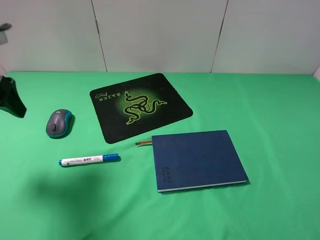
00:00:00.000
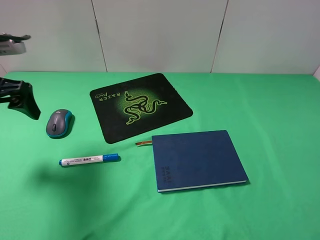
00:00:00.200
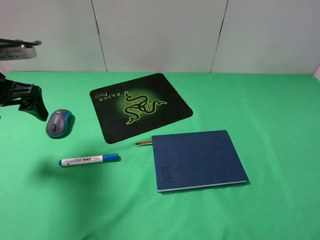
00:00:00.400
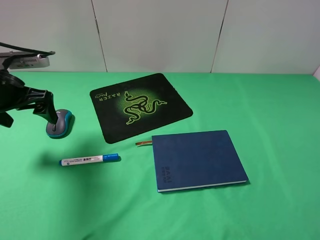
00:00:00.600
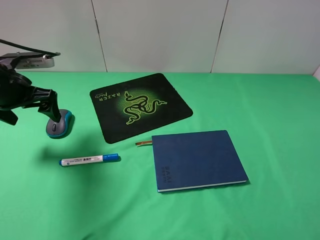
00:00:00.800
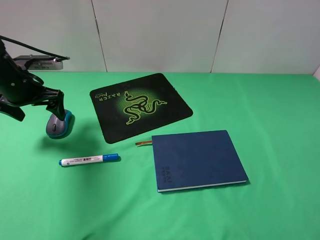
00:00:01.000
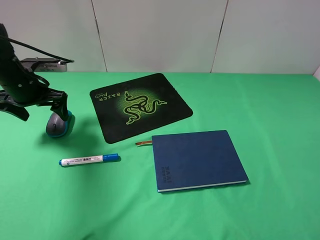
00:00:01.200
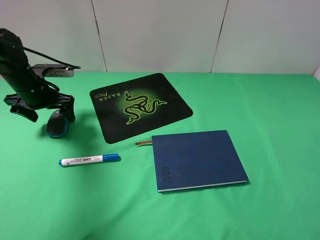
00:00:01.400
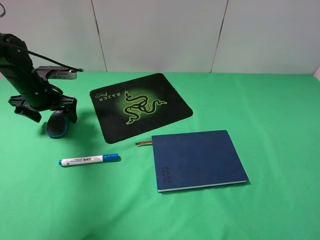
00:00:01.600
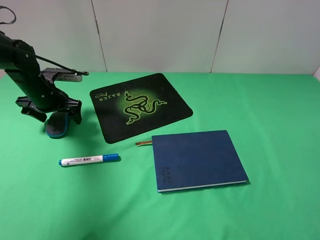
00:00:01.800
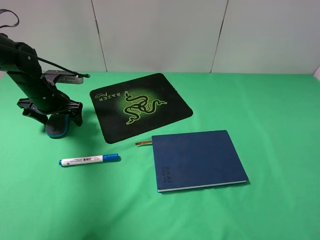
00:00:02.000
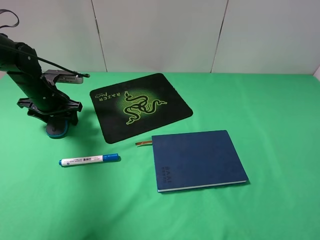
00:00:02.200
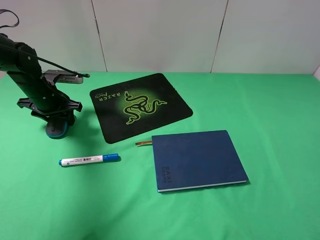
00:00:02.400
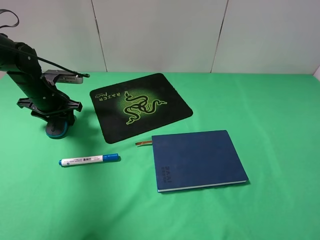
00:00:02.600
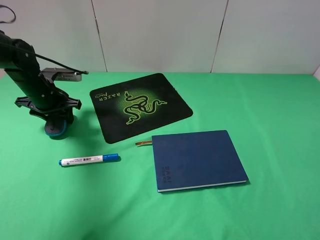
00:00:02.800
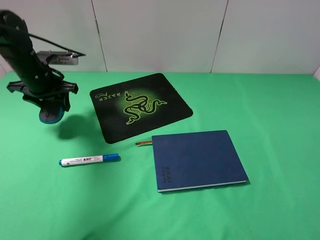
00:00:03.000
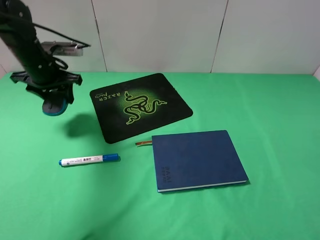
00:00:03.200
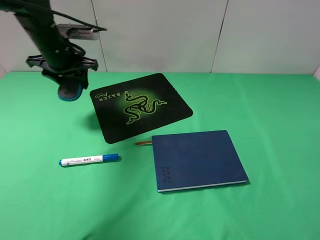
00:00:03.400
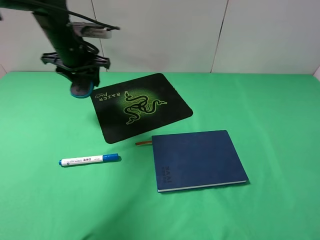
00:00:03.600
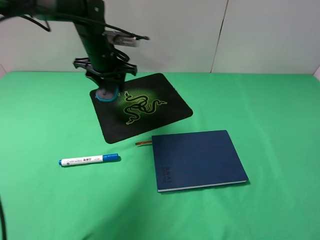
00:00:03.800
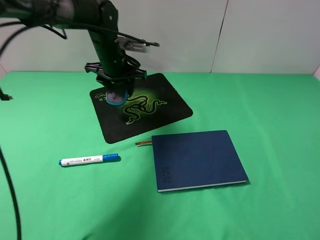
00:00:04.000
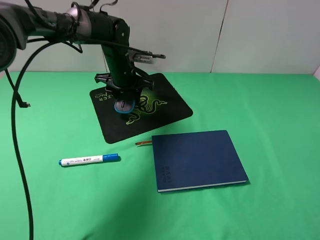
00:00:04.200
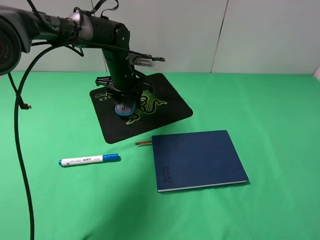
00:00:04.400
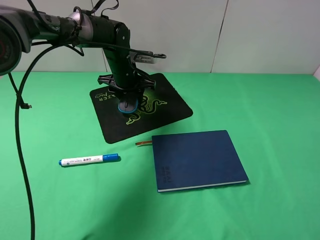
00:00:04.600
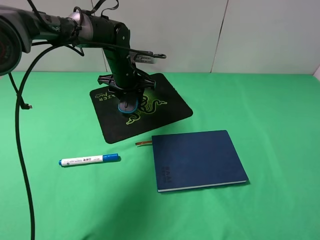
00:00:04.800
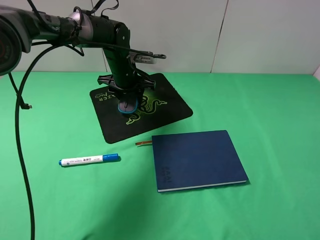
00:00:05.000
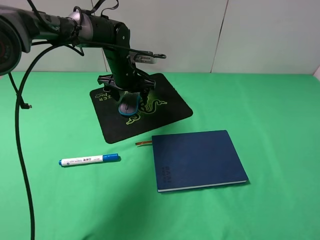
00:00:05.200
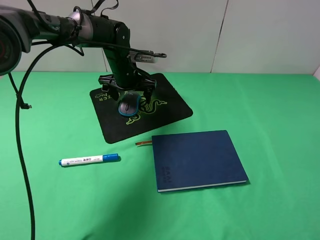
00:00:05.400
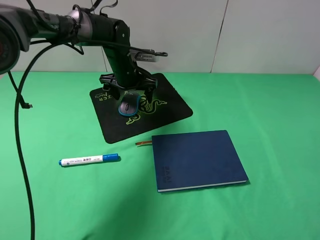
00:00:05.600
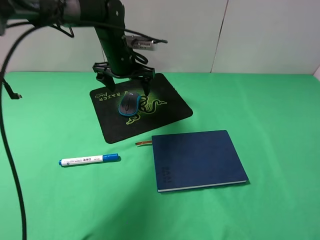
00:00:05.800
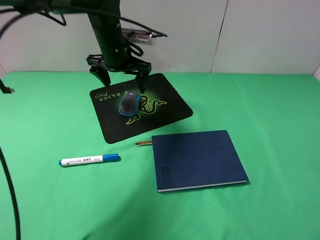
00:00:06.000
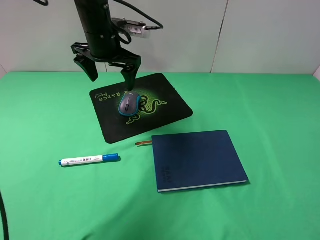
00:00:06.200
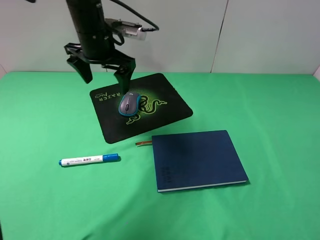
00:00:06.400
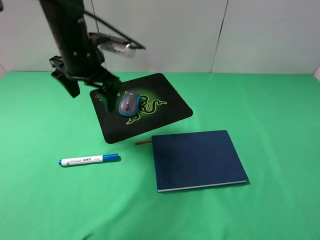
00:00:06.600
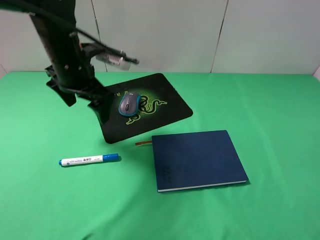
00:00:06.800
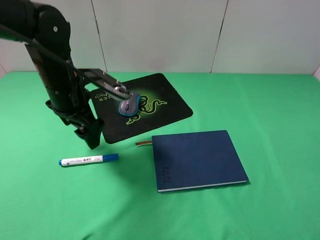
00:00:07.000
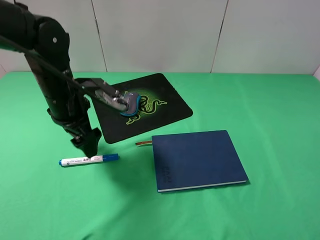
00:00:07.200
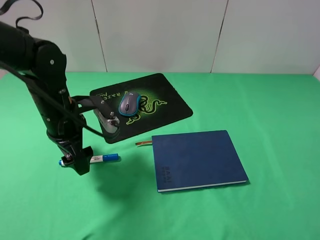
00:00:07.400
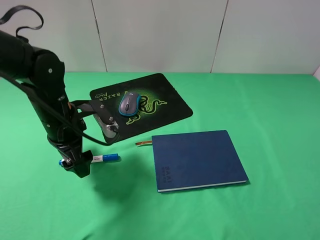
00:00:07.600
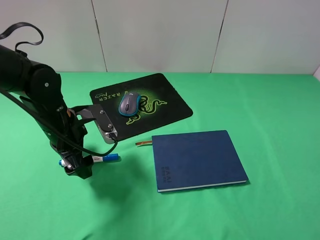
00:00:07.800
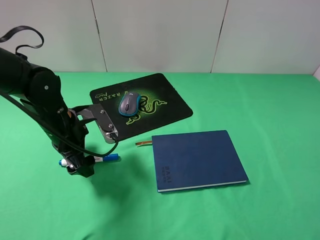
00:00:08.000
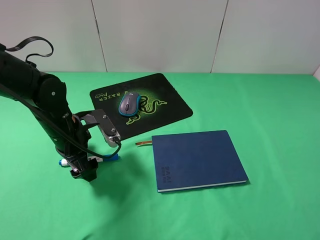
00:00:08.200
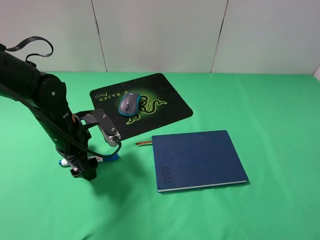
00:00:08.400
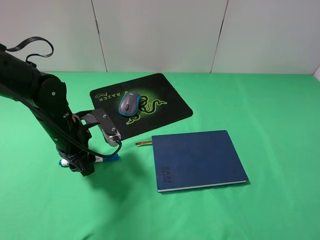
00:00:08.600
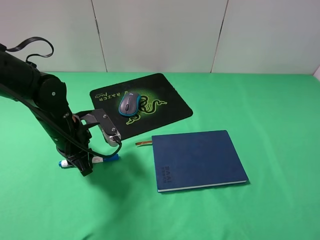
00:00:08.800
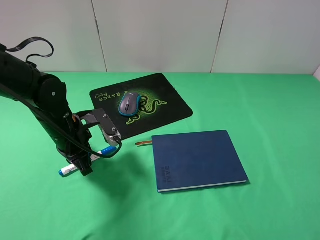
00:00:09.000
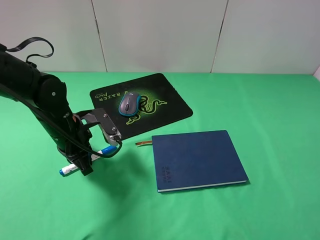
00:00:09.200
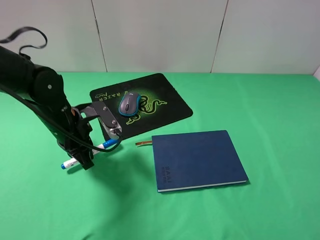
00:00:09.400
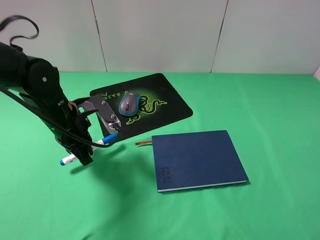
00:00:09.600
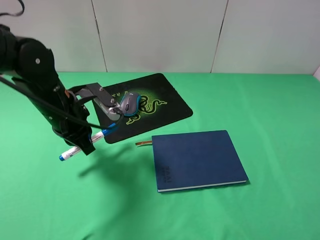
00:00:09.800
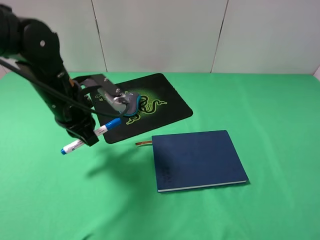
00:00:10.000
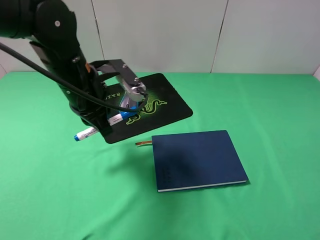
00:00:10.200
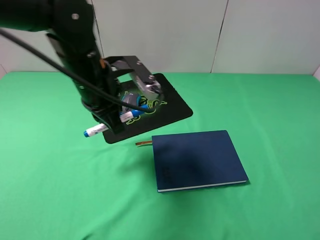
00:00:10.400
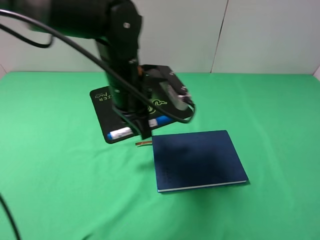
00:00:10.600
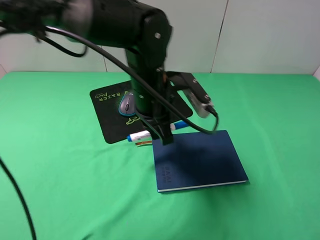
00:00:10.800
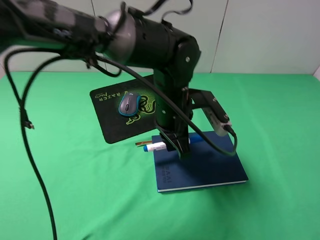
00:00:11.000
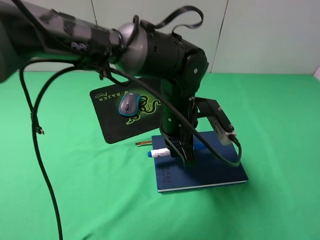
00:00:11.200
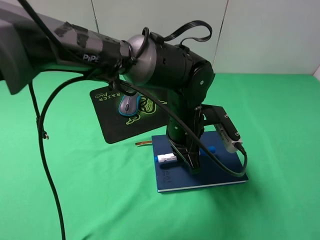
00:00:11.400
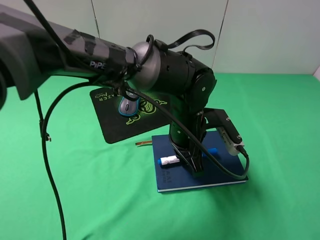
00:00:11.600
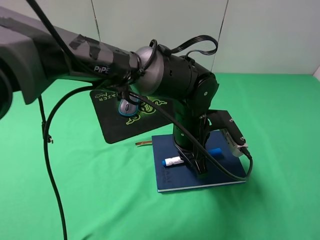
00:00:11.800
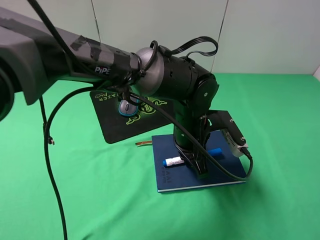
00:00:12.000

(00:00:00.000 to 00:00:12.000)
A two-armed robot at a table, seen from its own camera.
Step, 00:00:00.000 - 00:00:02.600: Grasp the mouse with the left gripper.
Step, 00:00:02.800 - 00:00:05.200: Place the mouse on the mouse pad with the left gripper.
Step, 00:00:05.400 - 00:00:08.800: Grasp the marker with the left gripper.
00:00:00.000 - 00:00:01.600: The left gripper heads downward and forward, covering about 20 cm.
00:00:01.600 - 00:00:03.000: The left gripper closes.
00:00:03.000 - 00:00:04.400: The left gripper shifts some 20 cm to the right.
00:00:04.400 - 00:00:06.000: The left gripper shifts roughly 10 cm upward, and opens.
00:00:06.000 - 00:00:07.600: The left gripper is displaced backward, to the left and downward by roughly 20 cm.
00:00:07.600 - 00:00:09.000: The left gripper closes up.
00:00:09.000 - 00:00:10.400: The left gripper travels upward and to the right by about 15 cm.
00:00:10.400 - 00:00:12.000: The left gripper heads to the right and downward, covering approximately 20 cm.

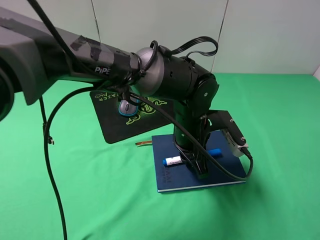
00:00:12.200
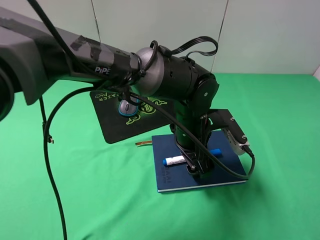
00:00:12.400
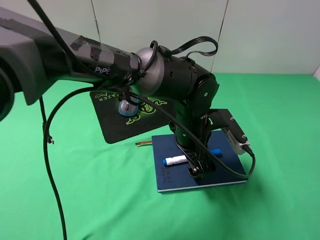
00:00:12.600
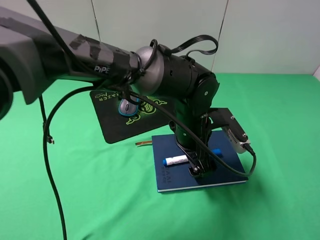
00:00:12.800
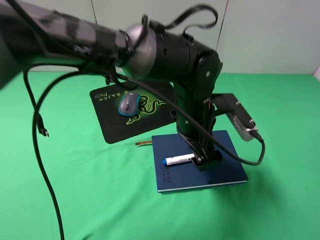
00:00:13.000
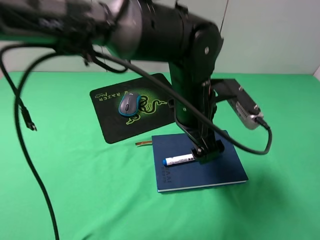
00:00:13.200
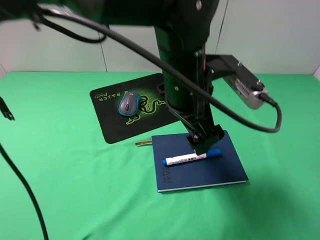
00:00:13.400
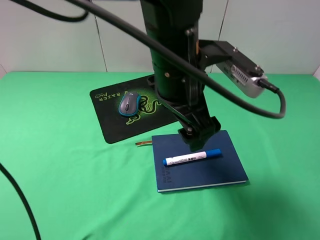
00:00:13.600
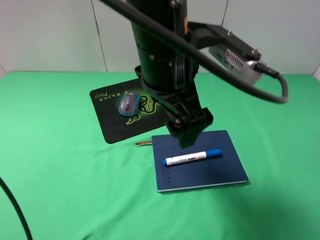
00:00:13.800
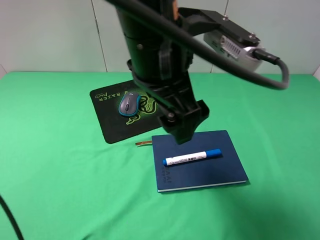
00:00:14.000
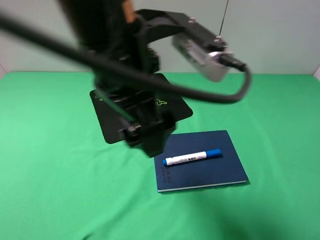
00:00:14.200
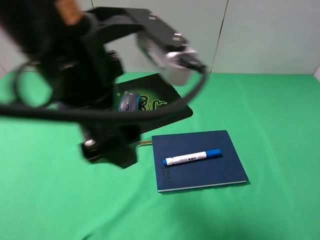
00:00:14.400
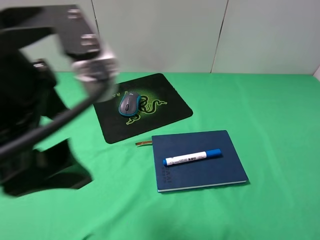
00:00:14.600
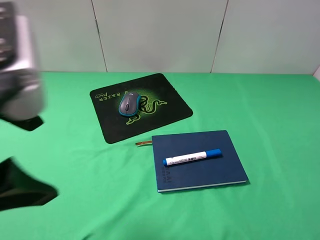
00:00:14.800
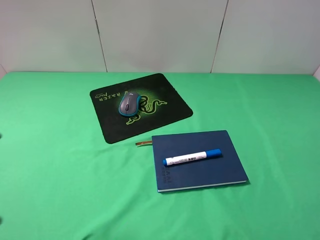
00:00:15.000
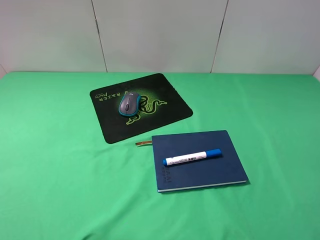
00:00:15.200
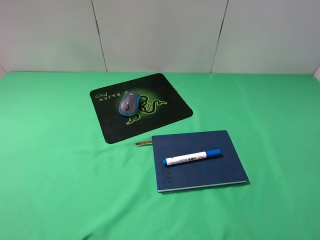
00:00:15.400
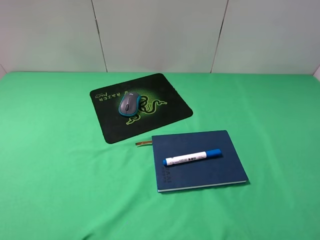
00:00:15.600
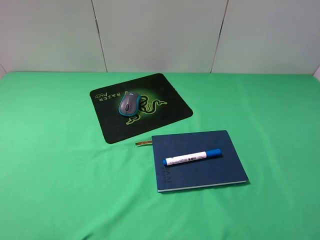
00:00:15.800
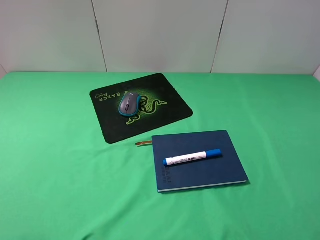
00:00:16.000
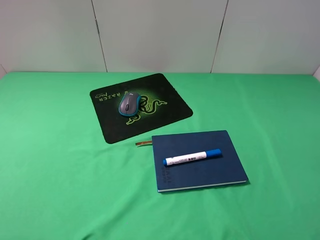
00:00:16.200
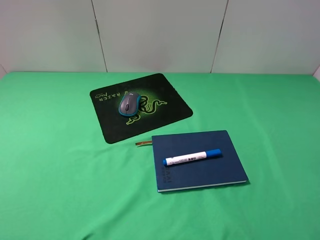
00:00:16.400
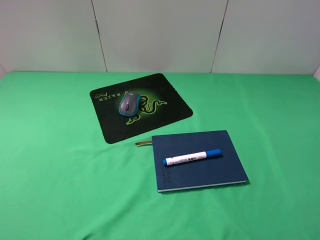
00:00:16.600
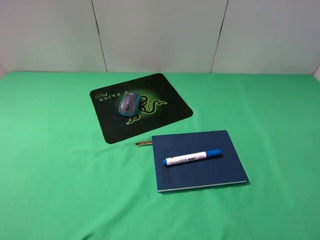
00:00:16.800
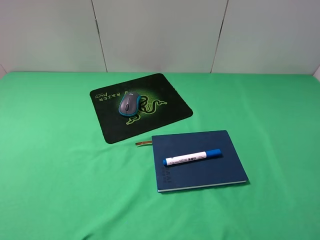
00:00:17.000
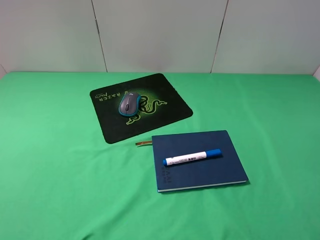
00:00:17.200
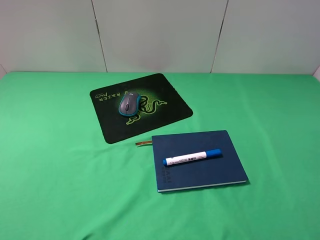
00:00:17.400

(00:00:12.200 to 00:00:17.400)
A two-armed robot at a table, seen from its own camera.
00:00:12.200 - 00:00:14.000: The left gripper moves upward, some 20 cm, and opens.
00:00:14.000 - 00:00:15.600: The left gripper heads to the left and backward, covering some 30 cm.

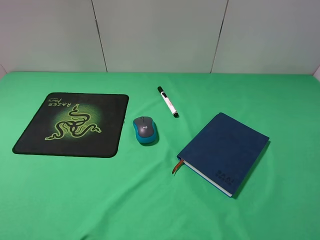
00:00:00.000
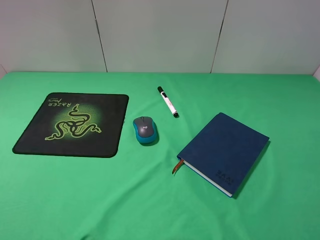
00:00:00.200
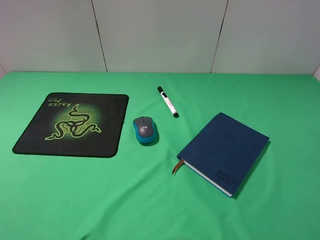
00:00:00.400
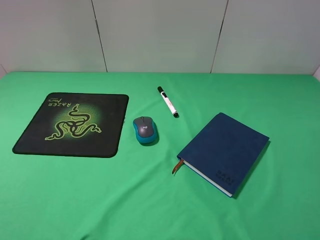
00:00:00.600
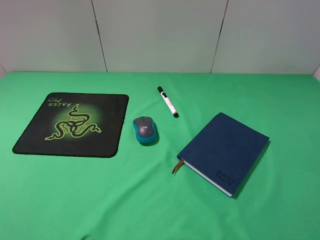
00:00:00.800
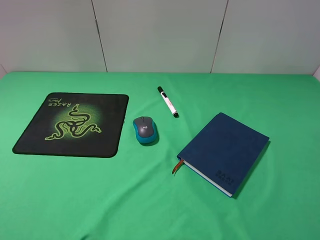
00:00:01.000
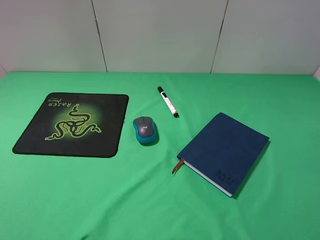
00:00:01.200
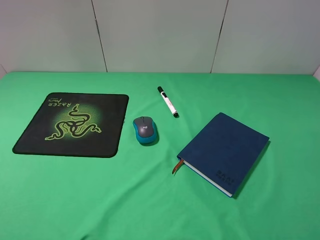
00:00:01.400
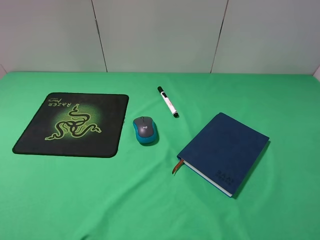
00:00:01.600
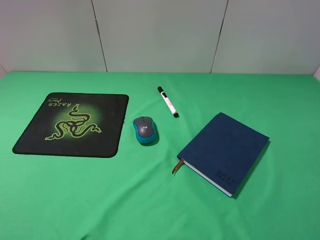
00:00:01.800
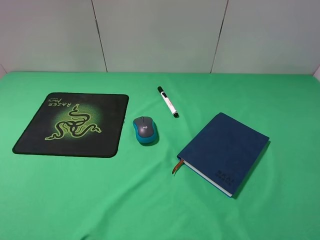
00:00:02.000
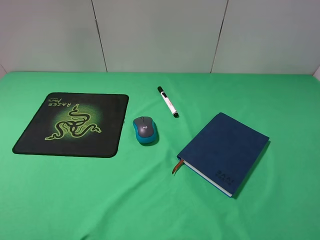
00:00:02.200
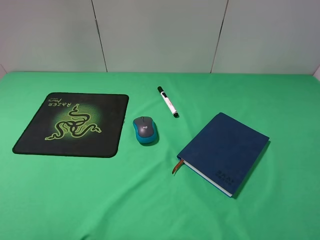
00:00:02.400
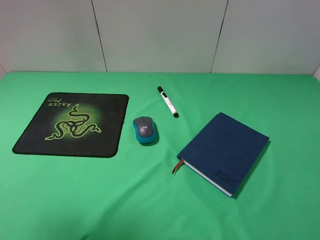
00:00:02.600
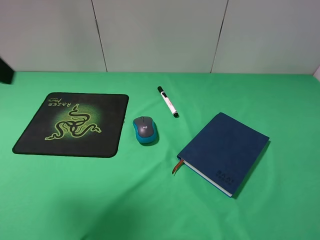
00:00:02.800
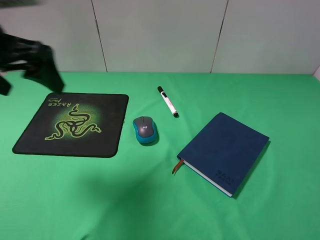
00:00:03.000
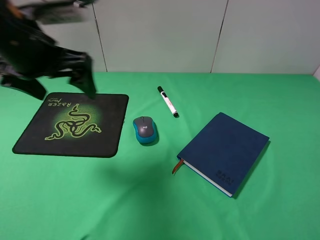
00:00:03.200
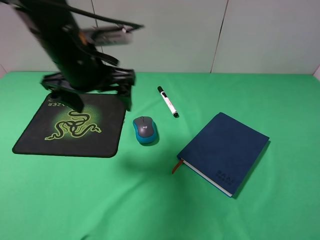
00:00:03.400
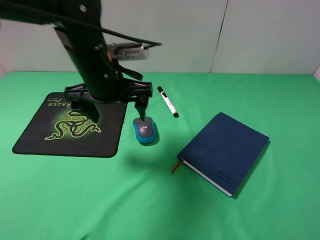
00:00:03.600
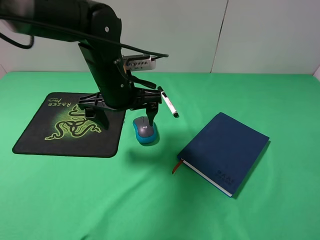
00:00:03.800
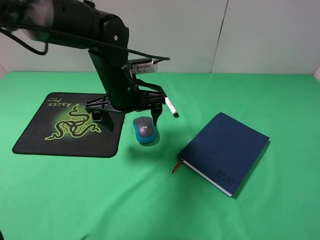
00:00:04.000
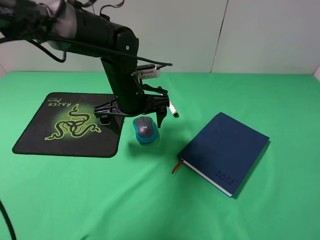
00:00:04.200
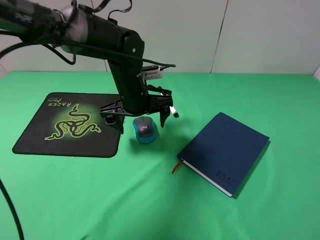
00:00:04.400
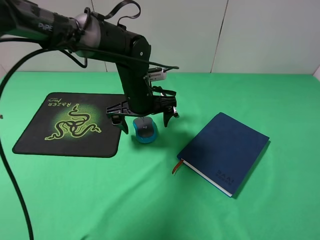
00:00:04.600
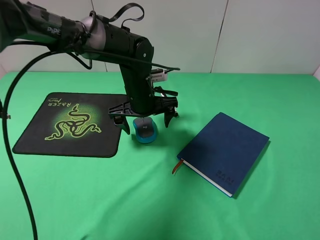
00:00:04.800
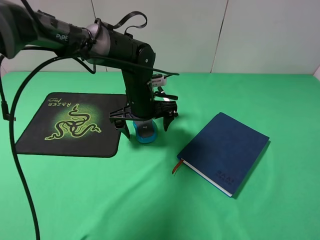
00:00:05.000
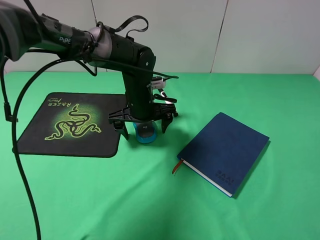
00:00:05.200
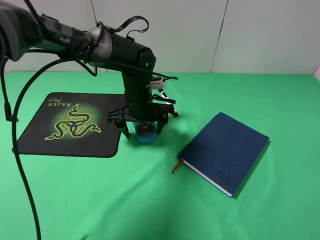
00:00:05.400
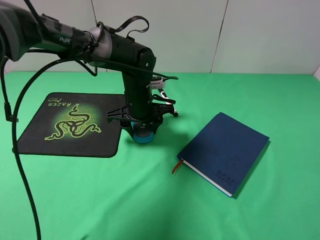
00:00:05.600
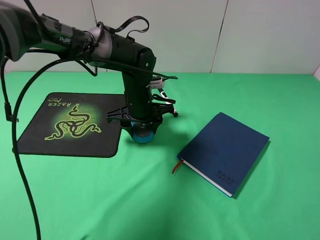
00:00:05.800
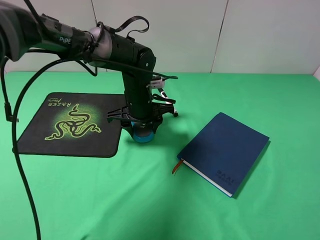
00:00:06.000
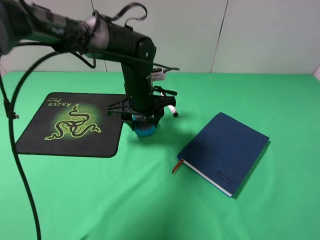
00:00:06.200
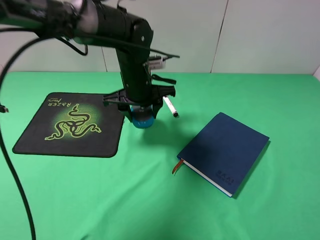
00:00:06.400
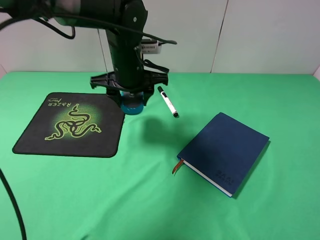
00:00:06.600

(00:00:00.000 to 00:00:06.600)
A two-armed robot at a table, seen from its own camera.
Step, 00:00:00.000 - 00:00:05.800: Grasp the mouse with the left gripper.
00:00:00.000 - 00:00:01.600: Neither gripper changes place.
00:00:01.600 - 00:00:03.200: The left gripper travels forward and to the right by about 30 cm.
00:00:03.200 - 00:00:05.000: The left gripper goes about 25 cm downward, to the right and forward.
00:00:05.000 - 00:00:06.600: The left gripper moves upward, about 10 cm, and closes up.
